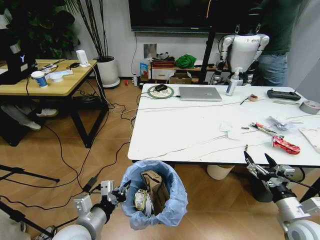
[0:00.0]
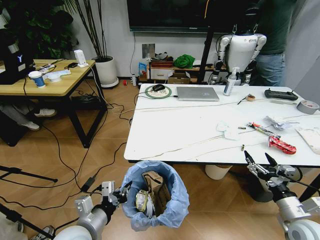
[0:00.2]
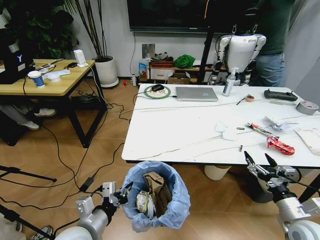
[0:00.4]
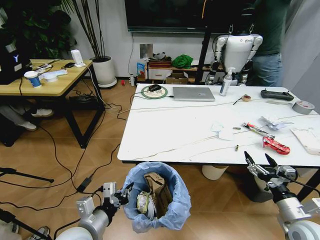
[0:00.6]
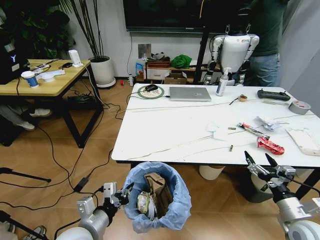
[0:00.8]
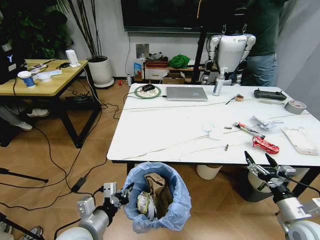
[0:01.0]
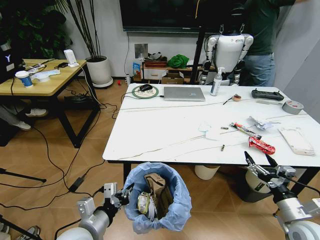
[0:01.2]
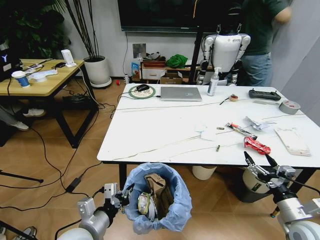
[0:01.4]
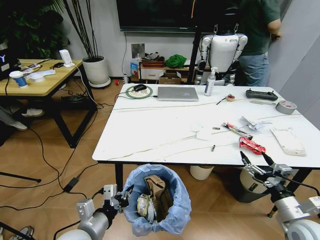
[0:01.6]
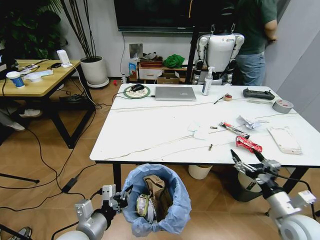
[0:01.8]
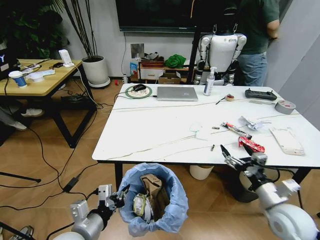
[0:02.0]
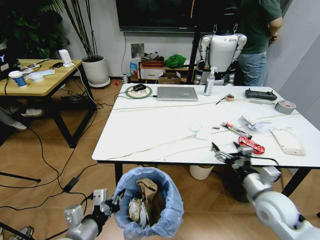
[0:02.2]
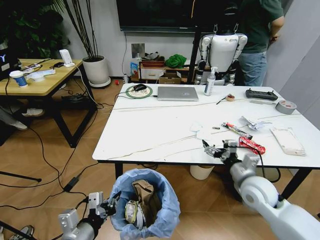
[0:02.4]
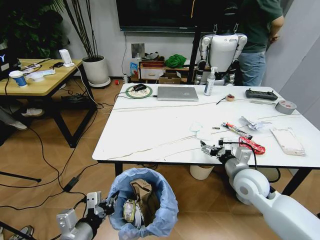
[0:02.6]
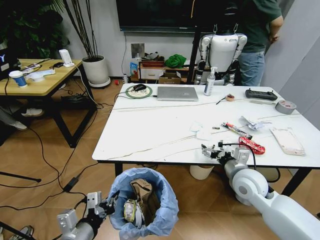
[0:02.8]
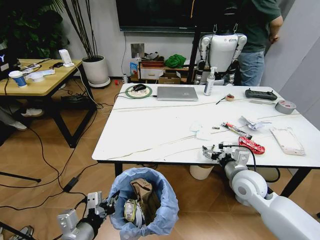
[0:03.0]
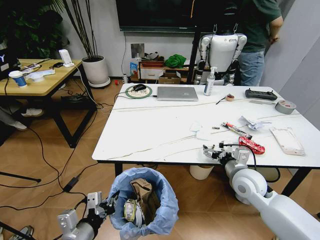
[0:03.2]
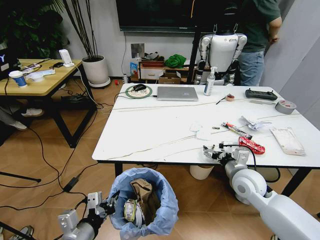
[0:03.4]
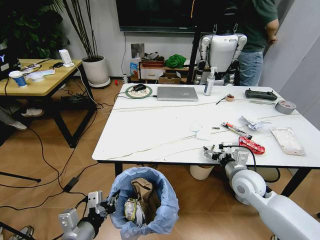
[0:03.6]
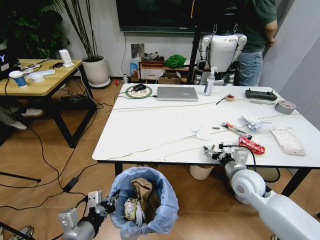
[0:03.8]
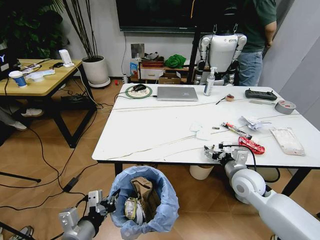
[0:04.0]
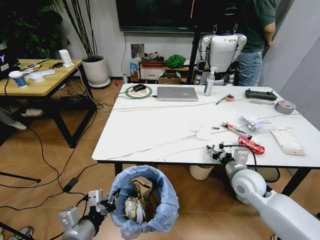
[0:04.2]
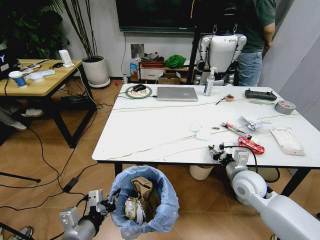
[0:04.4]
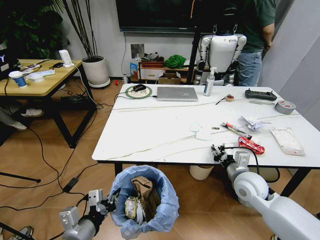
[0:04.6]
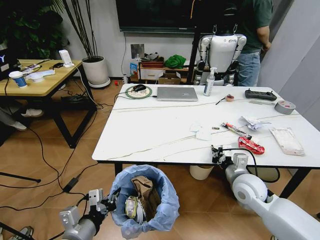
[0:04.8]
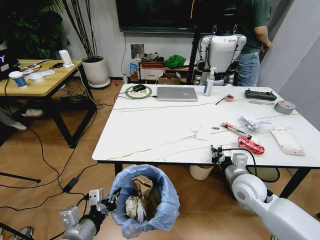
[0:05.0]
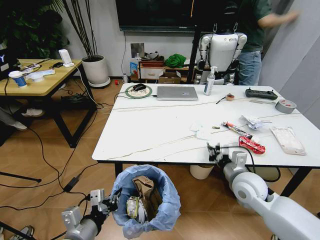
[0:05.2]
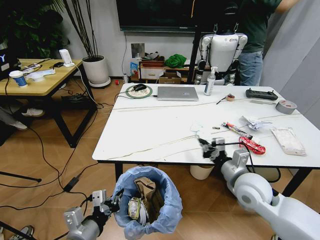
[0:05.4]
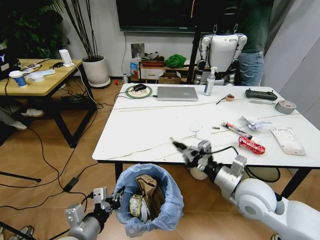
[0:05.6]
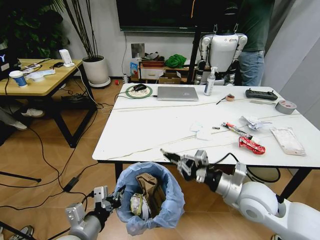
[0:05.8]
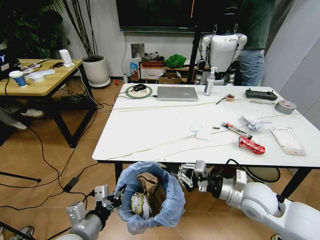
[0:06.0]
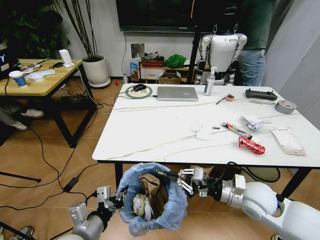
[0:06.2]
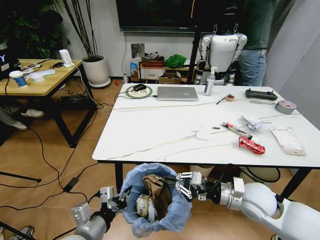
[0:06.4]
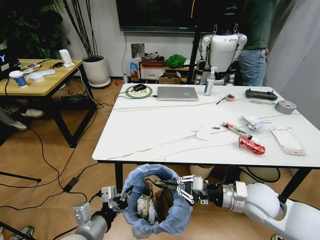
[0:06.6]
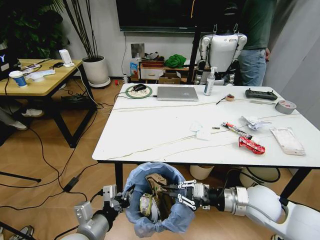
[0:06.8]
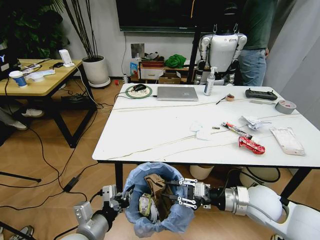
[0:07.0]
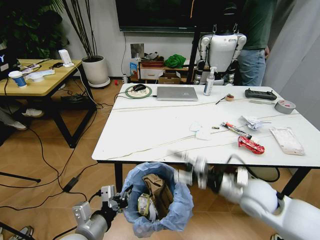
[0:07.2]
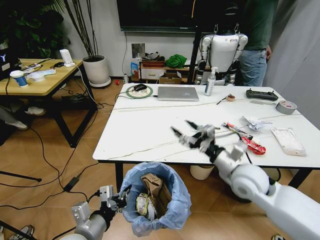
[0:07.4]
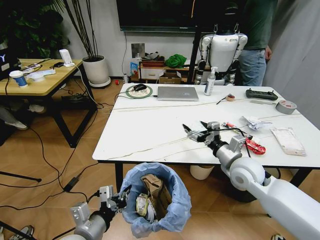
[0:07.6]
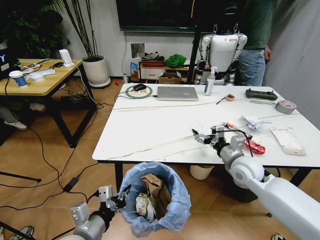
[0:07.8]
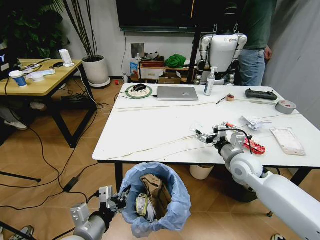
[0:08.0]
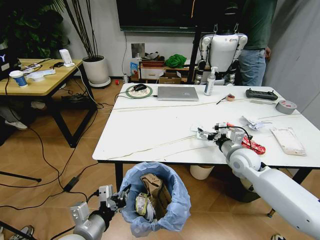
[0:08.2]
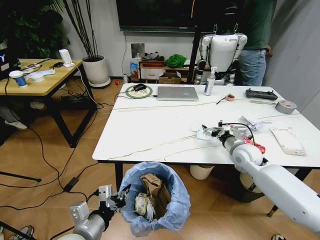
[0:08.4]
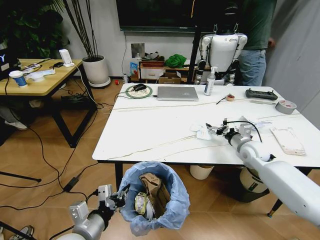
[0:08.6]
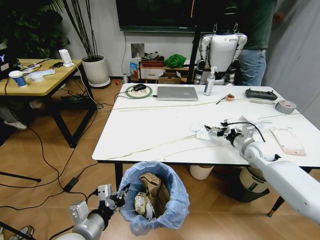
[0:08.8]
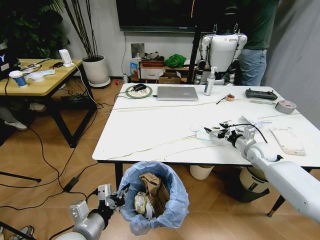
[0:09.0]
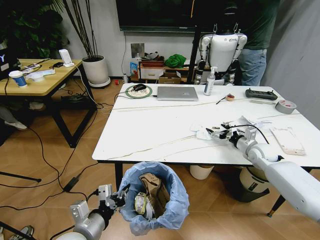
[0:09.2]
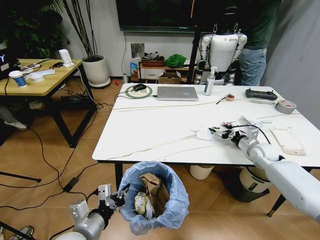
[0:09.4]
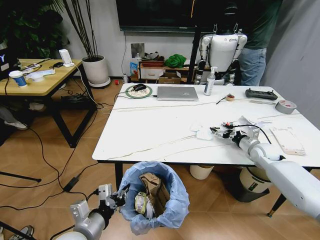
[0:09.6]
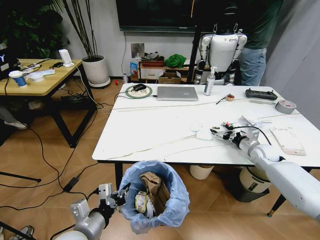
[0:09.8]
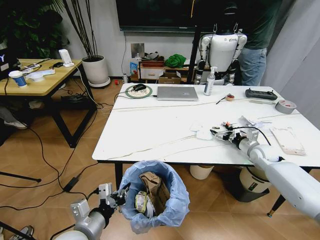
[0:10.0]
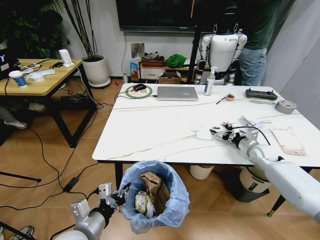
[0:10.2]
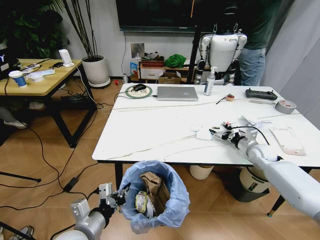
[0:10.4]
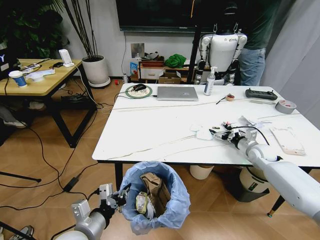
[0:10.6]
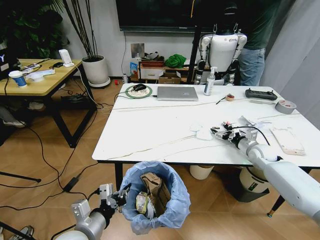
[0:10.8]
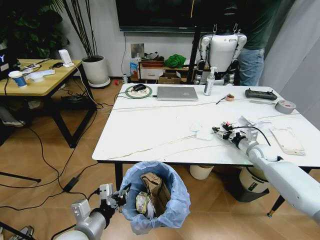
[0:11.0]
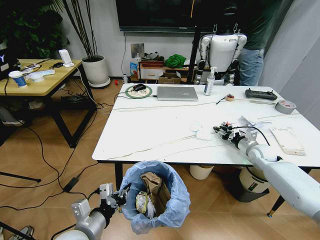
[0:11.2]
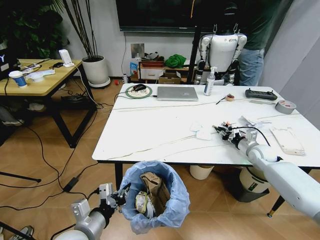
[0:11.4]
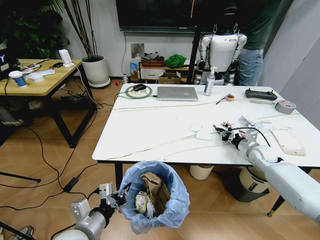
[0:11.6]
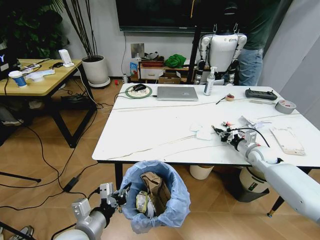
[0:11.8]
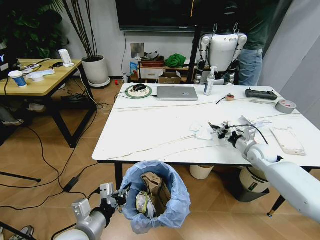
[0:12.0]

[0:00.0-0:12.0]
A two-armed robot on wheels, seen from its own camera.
Task of the whole recording: Pick up the trash bin and place the trash from the table into it.
0:01.6 to 0:03.0: The right gripper moves forward and to the left, about 20 cm.
0:03.0 to 0:04.4: The right gripper closes up.
0:04.4 to 0:06.0: The right gripper is displaced backward by some 5 cm, and closes up.
0:06.0 to 0:07.6: The right gripper goes approximately 5 cm forward, and opens up.
0:07.6 to 0:09.0: The right gripper travels to the right, forward and downward by approximately 20 cm.
0:09.0 to 0:10.4: There are only small adjustments of the grippers.
0:10.4 to 0:12.0: The right gripper closes its fingers.

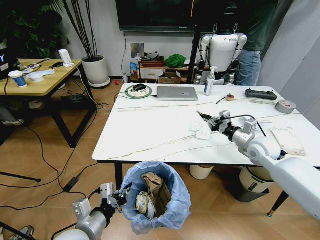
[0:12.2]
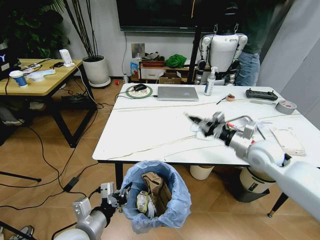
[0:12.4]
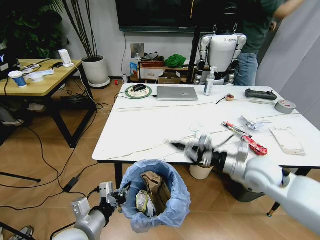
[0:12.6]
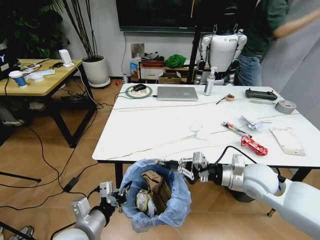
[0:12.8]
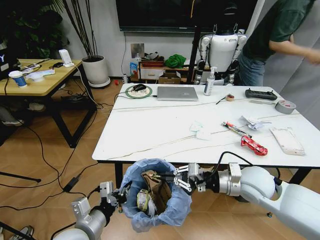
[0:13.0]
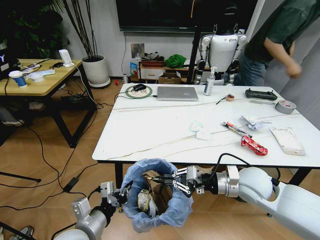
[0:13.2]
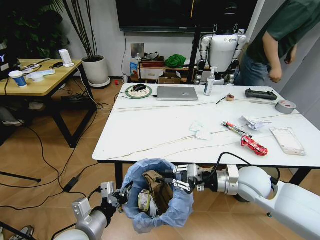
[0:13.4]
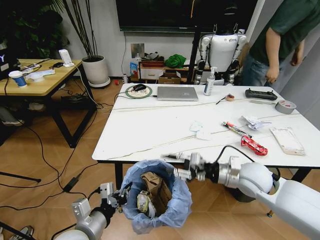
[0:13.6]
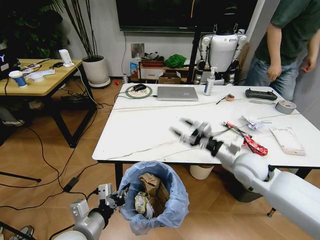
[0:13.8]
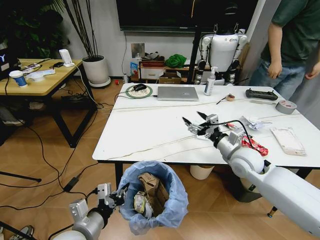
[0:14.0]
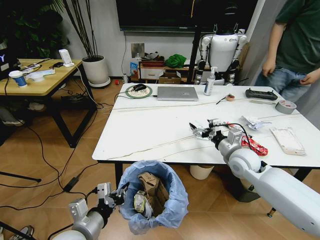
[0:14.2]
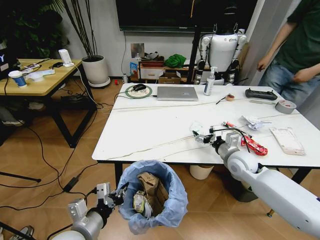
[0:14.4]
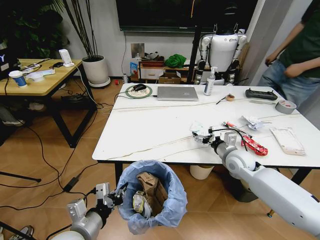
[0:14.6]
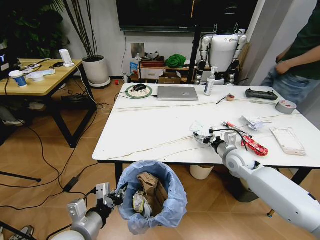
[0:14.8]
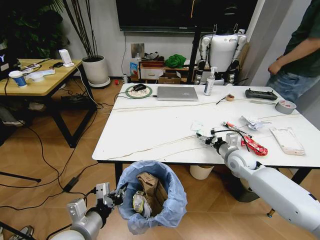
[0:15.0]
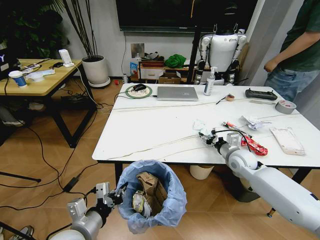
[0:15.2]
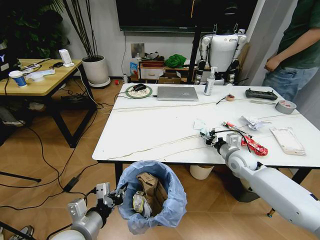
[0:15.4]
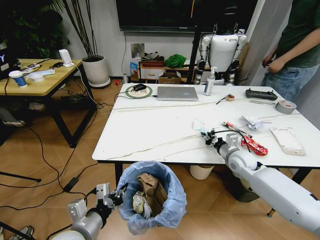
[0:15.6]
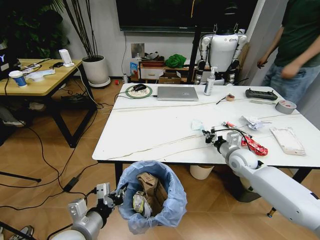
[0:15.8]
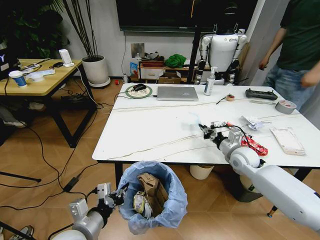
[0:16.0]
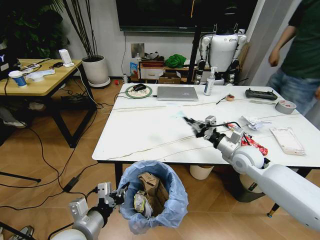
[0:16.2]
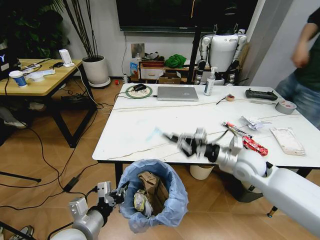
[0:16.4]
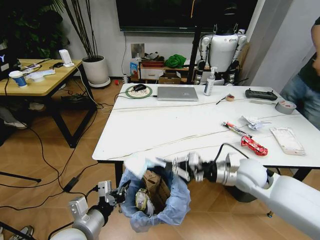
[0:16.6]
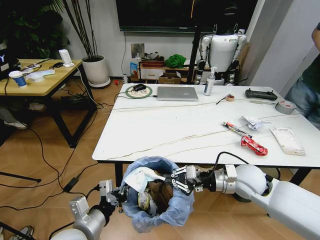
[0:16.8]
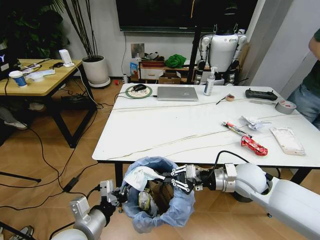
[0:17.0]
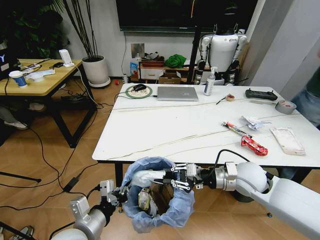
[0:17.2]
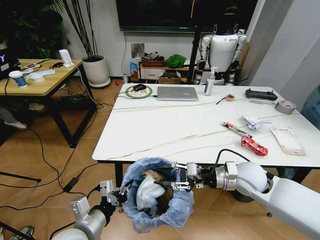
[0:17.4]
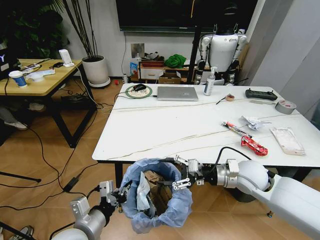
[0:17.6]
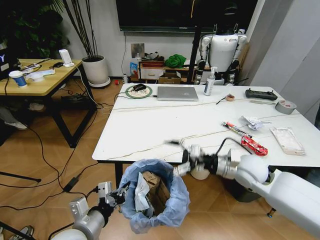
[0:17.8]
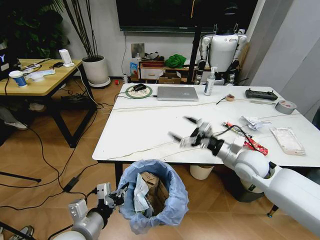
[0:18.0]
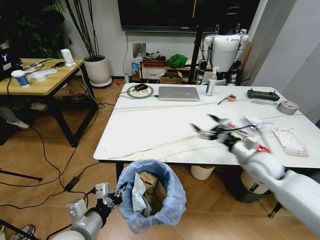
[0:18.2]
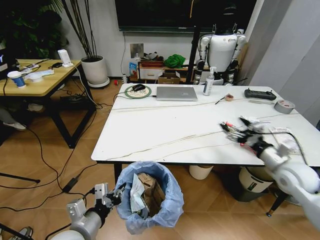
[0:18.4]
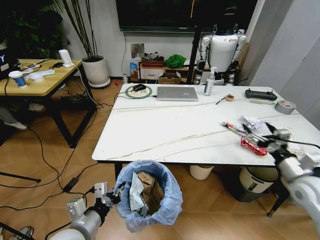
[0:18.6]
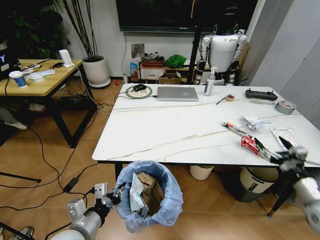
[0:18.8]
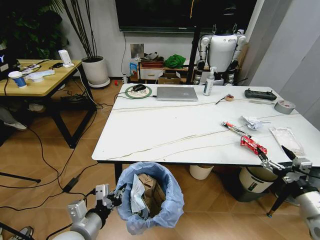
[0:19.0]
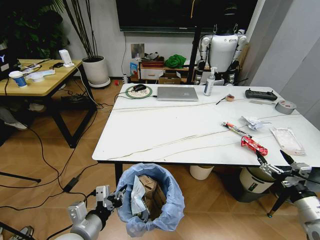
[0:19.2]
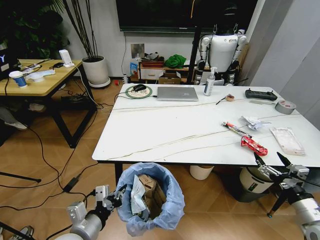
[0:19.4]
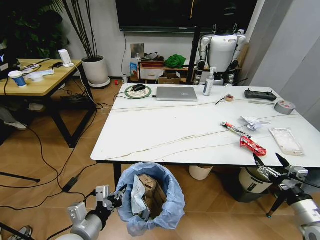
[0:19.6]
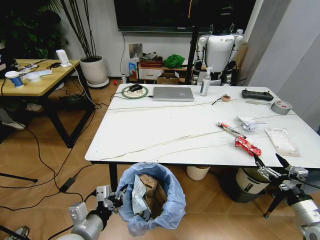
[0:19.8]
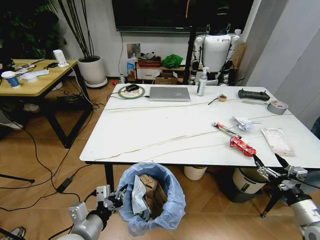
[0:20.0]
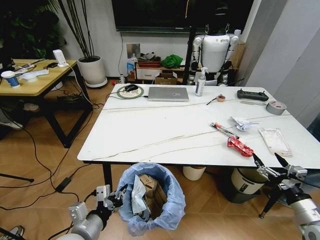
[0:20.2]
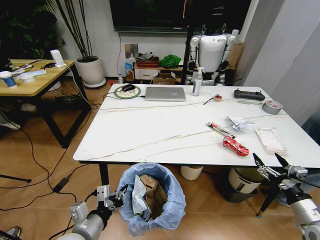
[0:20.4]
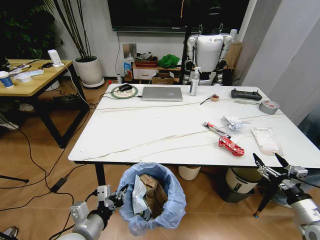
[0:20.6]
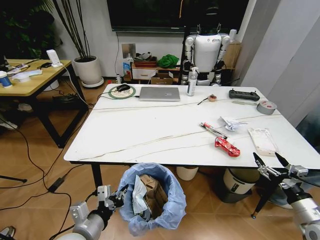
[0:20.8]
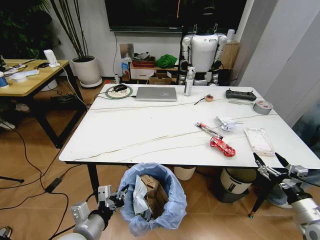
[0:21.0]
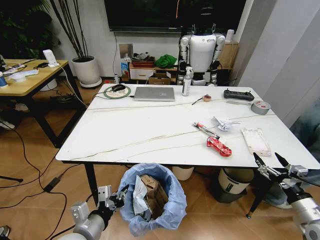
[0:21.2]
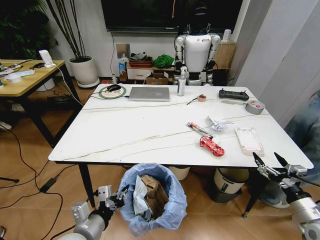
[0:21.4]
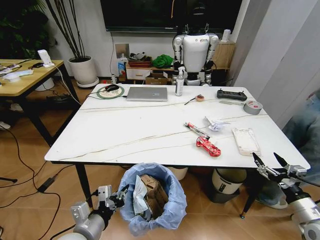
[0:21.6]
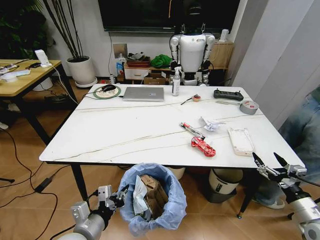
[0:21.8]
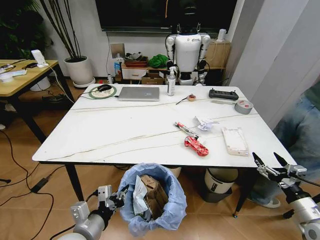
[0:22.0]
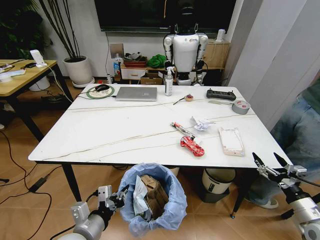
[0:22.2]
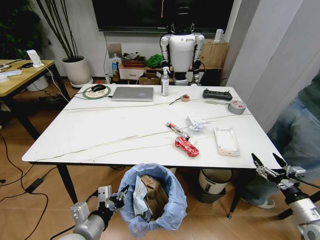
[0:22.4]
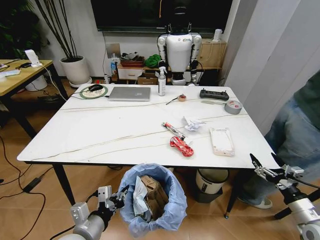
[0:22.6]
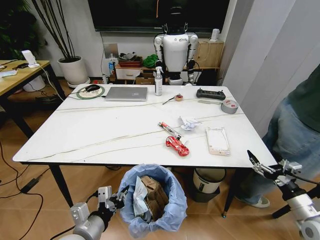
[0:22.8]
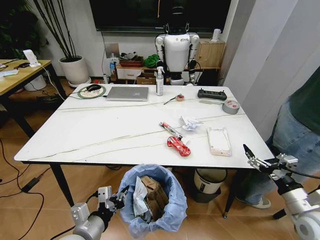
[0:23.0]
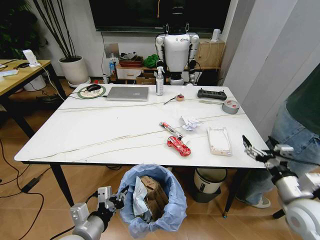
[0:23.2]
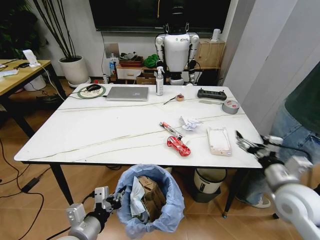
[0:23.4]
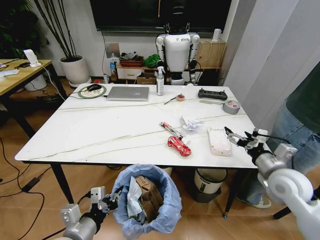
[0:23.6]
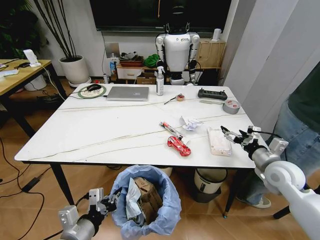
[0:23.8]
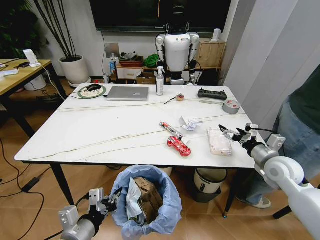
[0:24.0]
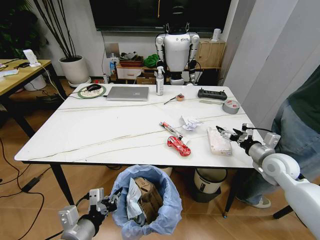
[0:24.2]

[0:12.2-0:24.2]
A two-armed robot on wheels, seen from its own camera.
Task of the whole recording: Pick up the trash bin and place the trash from the table into it.
0:12.2 to 0:13.8: The right gripper shifts roughly 15 cm to the left and backward, and opens its fingers.
0:13.8 to 0:15.2: The right gripper goes about 10 cm forward and downward, and opens and closes again.
0:15.2 to 0:16.6: The right gripper goes some 10 cm backward and upward, and closes its fingers.
0:16.6 to 0:18.2: The right gripper moves to the right, some 10 cm, and opens its fingers.
0:18.2 to 0:19.8: The right gripper moves backward and to the right, approximately 20 cm.
0:22.6 to 0:24.2: The right gripper shifts about 20 cm forward.
